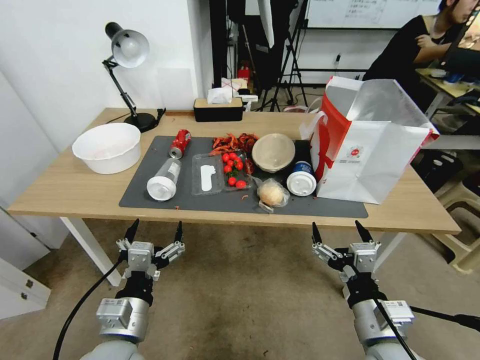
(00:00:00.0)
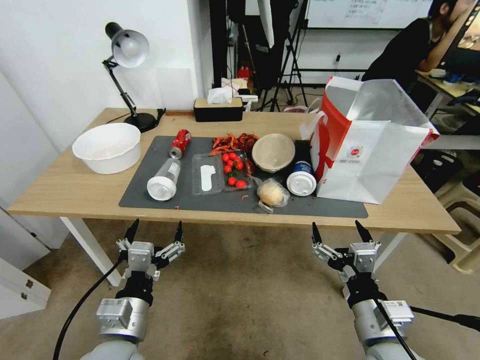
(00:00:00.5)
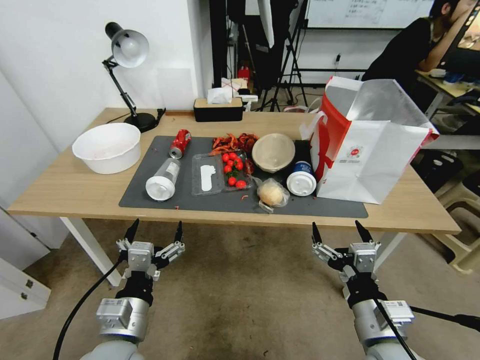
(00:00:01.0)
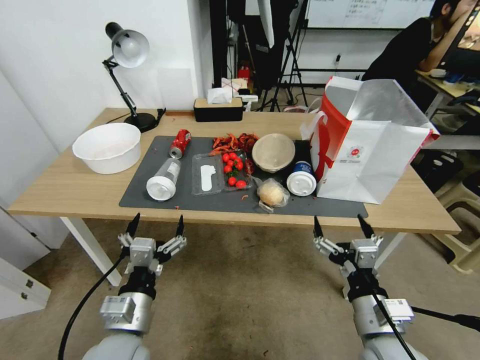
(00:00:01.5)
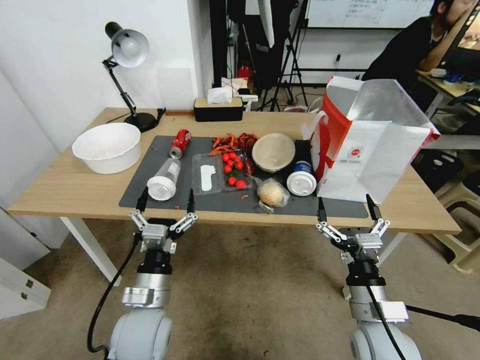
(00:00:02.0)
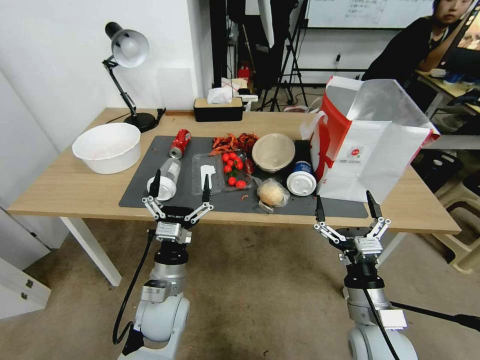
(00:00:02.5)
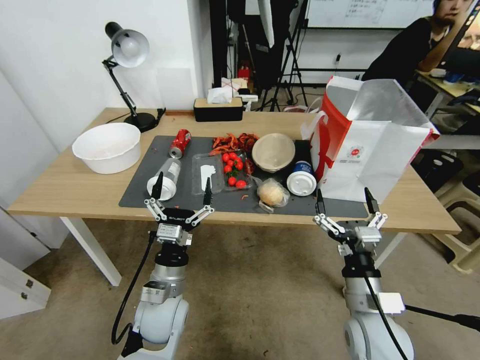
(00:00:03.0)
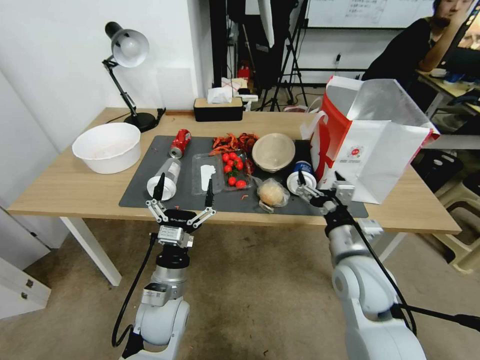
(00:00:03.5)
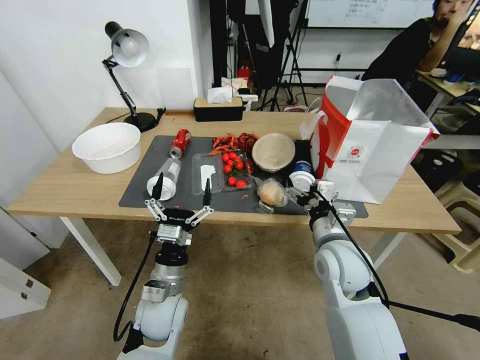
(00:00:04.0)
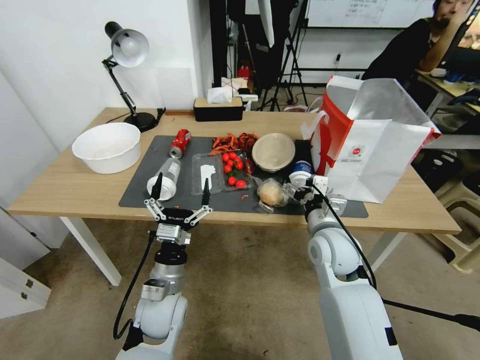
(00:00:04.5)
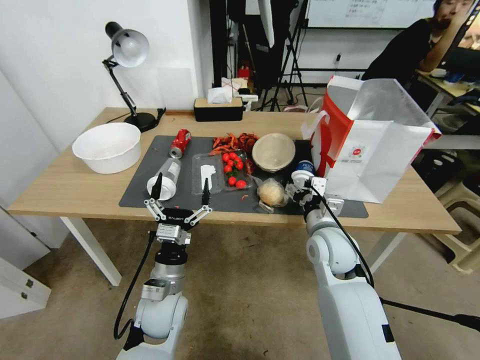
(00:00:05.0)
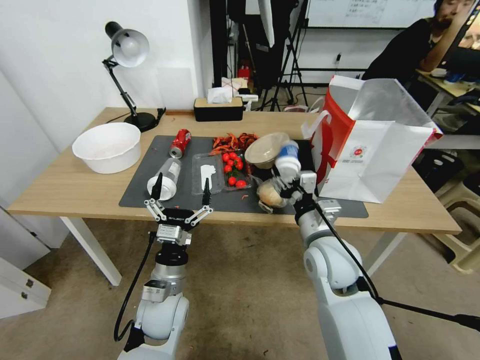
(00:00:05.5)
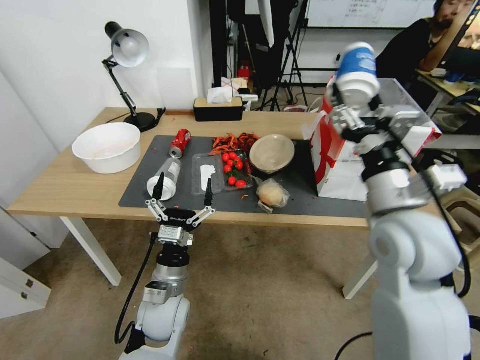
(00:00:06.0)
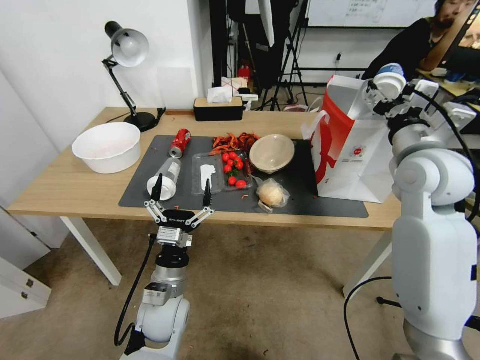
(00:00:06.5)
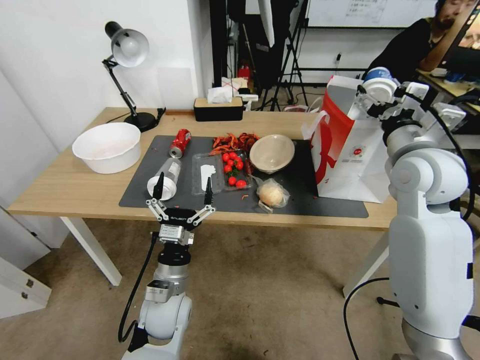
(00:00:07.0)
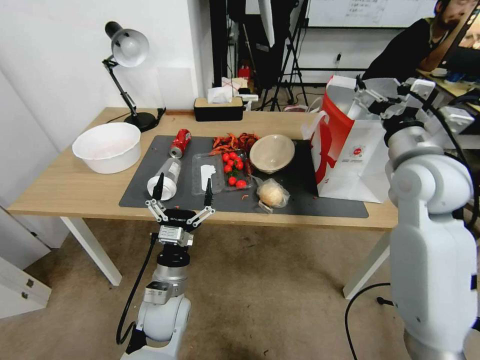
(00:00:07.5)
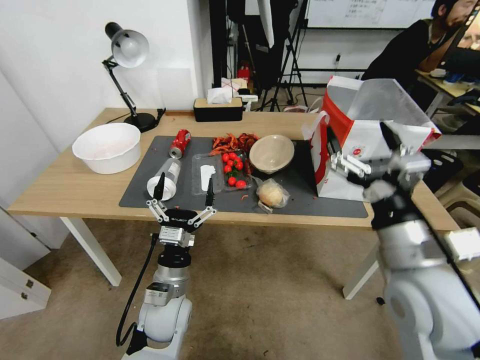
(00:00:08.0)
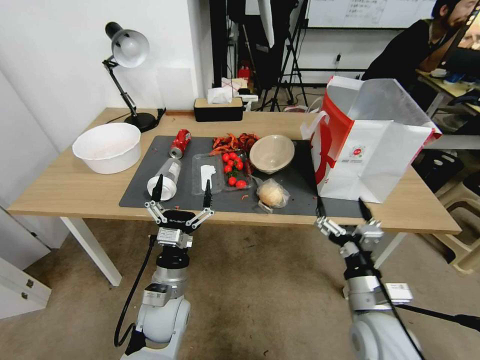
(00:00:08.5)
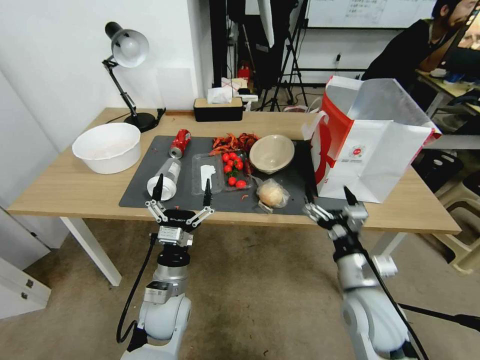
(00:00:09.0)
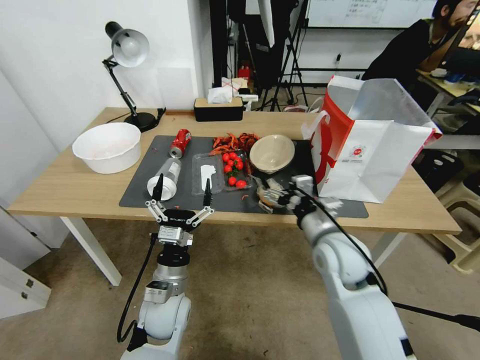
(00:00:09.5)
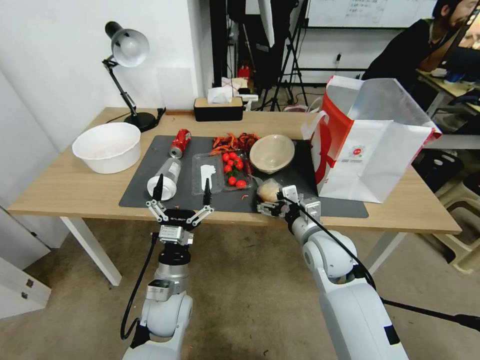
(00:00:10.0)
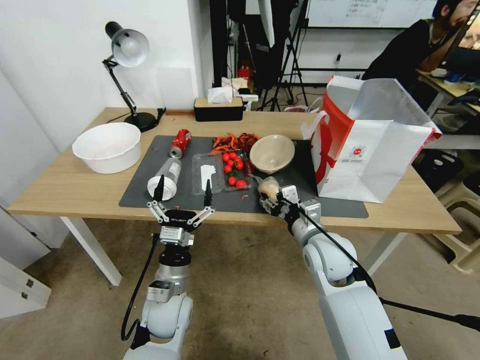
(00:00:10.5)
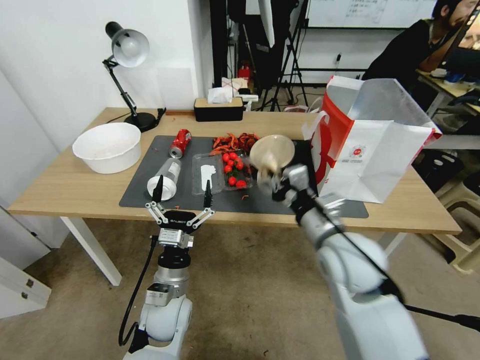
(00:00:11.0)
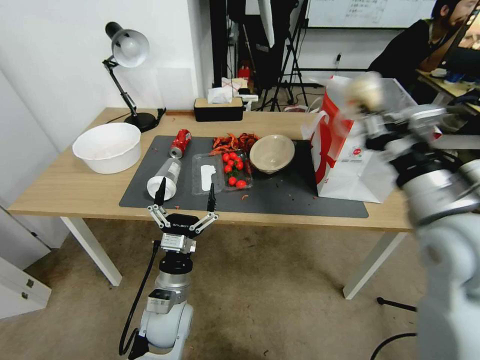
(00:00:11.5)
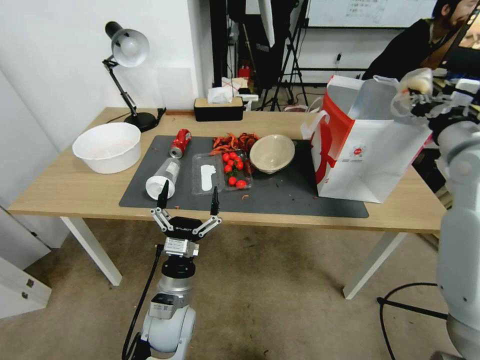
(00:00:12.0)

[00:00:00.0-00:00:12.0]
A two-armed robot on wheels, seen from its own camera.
00:00:02.0 to 00:00:04.0: The right gripper moves forward and upward, about 15 cm; the left gripper shifts by roughly 5 cm.
00:00:04.0 to 00:00:06.0: The right gripper heads upward, covering approximately 15 cm, and closes.
00:00:06.0 to 00:00:08.0: The right gripper is displaced backward by roughly 5 cm, and opens its fingers.
00:00:08.0 to 00:00:10.0: The right gripper travels forward, downward and to the left by approximately 20 cm.
00:00:10.0 to 00:00:12.0: The right gripper is displaced to the right and upward by roughly 30 cm, and closes.

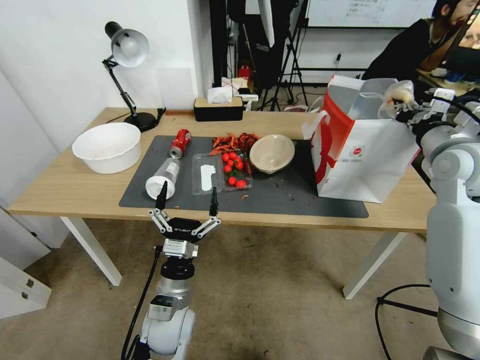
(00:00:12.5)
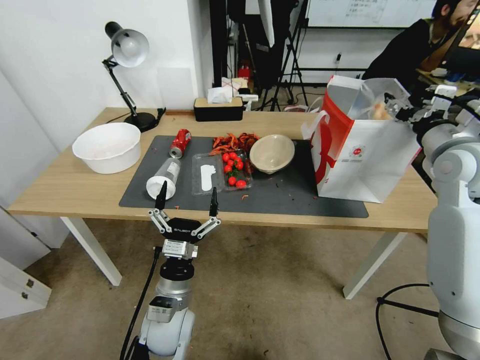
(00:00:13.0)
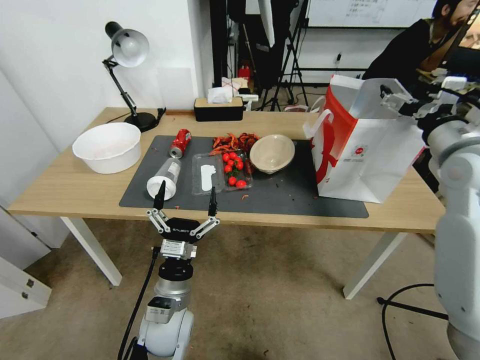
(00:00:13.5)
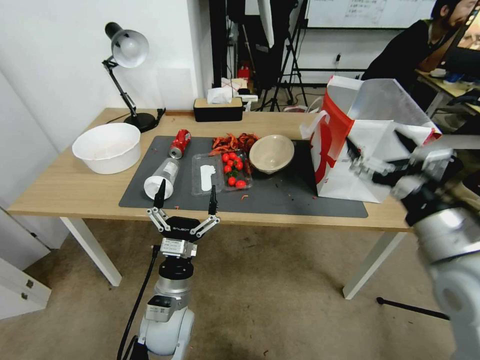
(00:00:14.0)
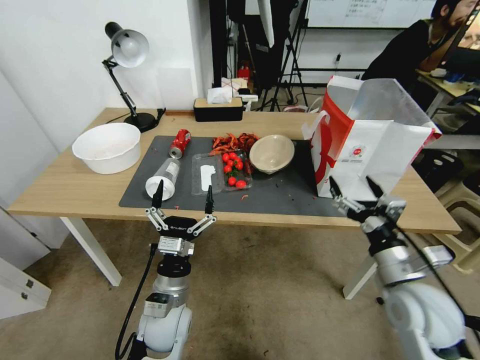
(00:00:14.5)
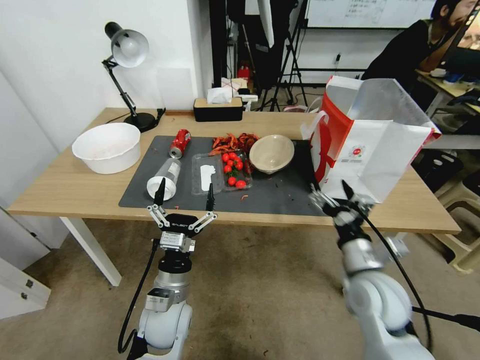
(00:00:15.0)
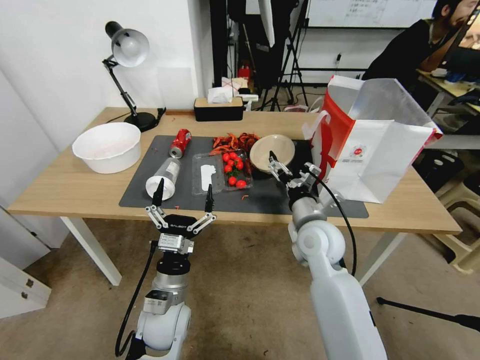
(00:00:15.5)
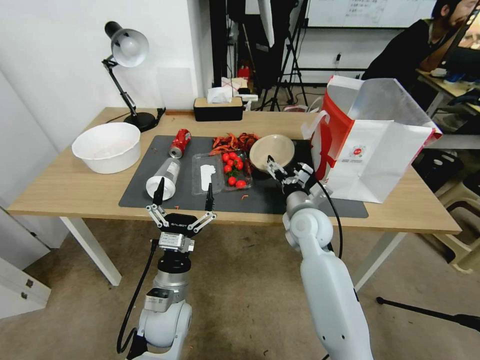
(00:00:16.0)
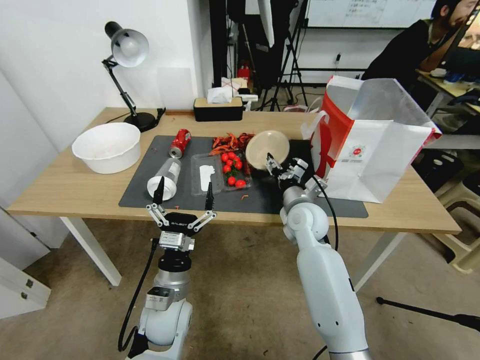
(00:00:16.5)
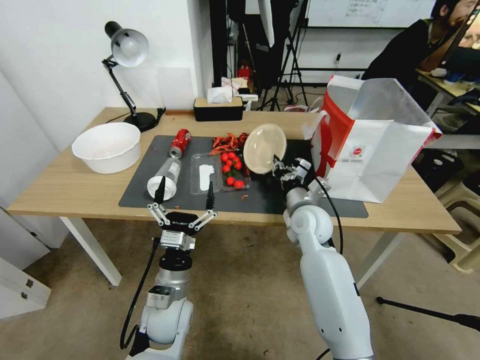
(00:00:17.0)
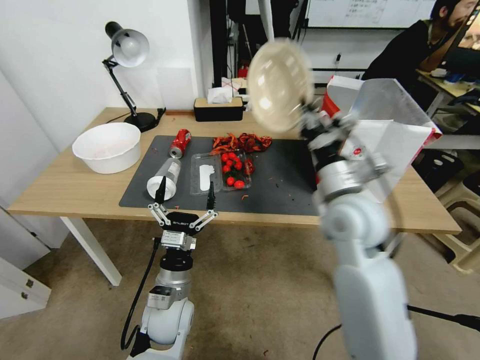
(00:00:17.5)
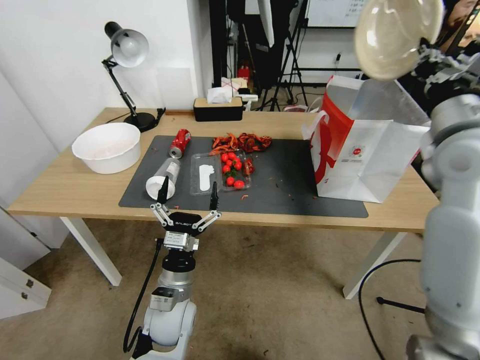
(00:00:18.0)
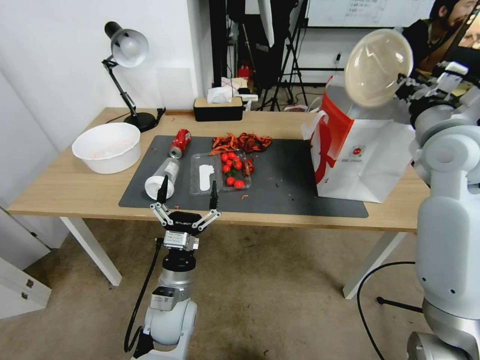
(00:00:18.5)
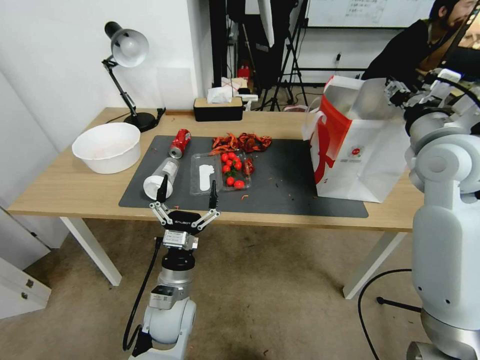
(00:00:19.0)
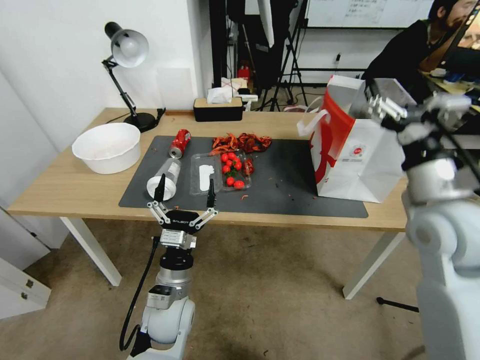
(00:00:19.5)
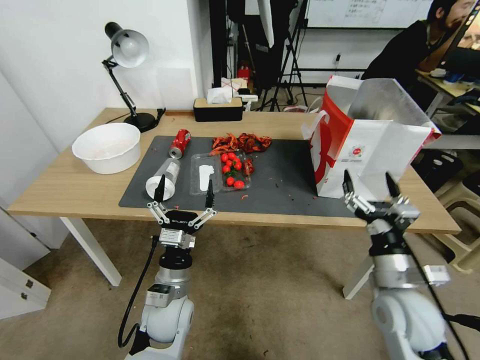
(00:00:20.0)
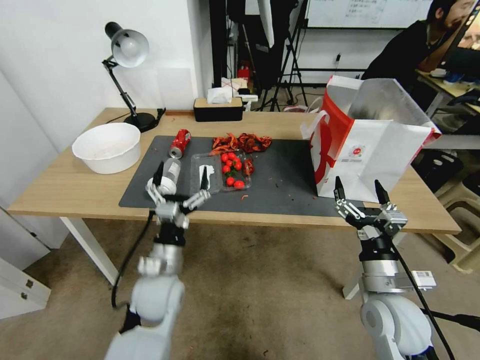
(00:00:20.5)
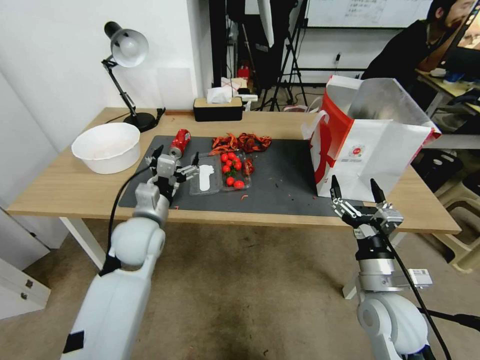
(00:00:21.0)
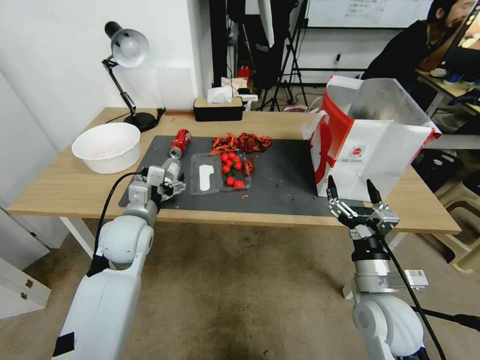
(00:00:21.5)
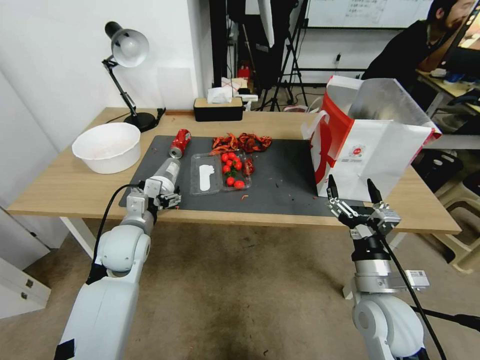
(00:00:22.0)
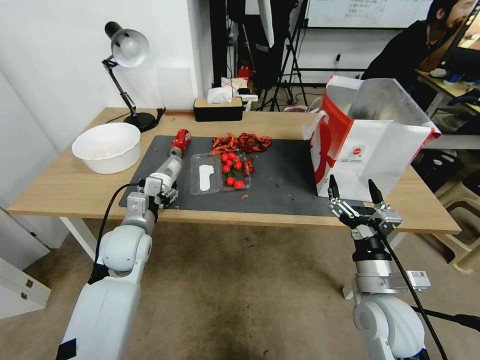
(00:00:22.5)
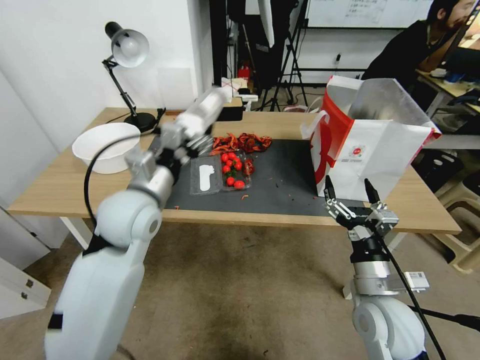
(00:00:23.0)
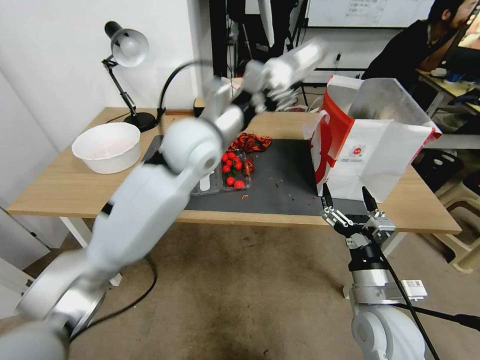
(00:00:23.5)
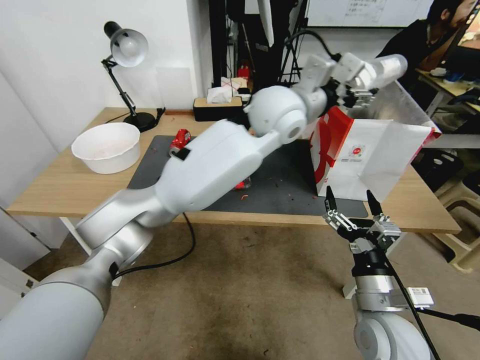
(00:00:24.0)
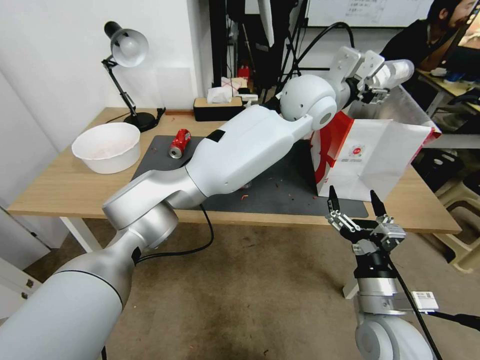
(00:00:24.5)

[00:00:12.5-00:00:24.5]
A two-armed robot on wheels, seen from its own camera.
00:00:12.5 to 00:00:14.5: The right gripper shifts about 25 cm backward, downward and to the left, and opens up.
00:00:14.5 to 00:00:16.5: The right gripper travels forward and to the left by roughly 25 cm, and closes.
00:00:16.5 to 00:00:18.5: The right gripper heads upward and to the right, covering roughly 30 cm, and closes up.
00:00:18.5 to 00:00:20.5: The right gripper heads downward and backward, covering approximately 30 cm, and opens its fingers.
00:00:20.5 to 00:00:22.5: The left gripper is displaced forward, to the left and upward by roughly 15 cm, and closes up.
00:00:22.5 to 00:00:24.5: The left gripper shifts approximately 50 cm to the right, upward and forward.

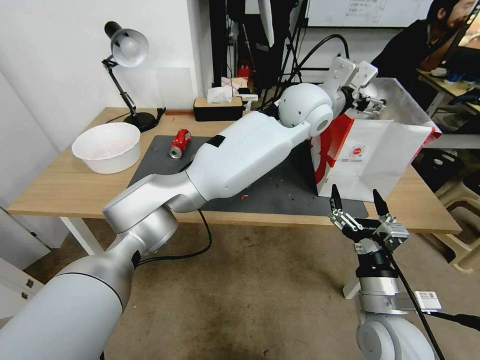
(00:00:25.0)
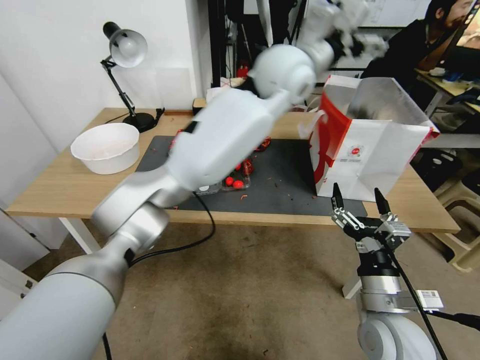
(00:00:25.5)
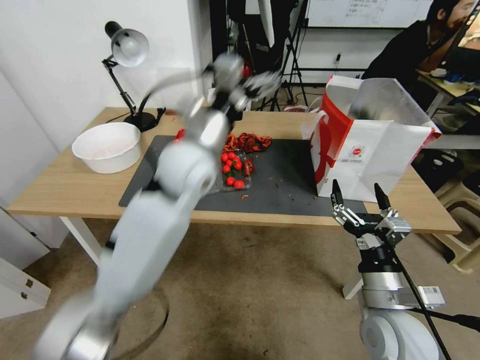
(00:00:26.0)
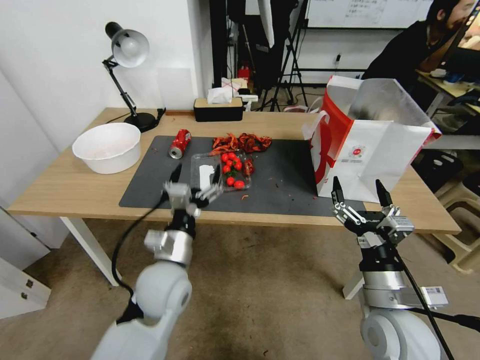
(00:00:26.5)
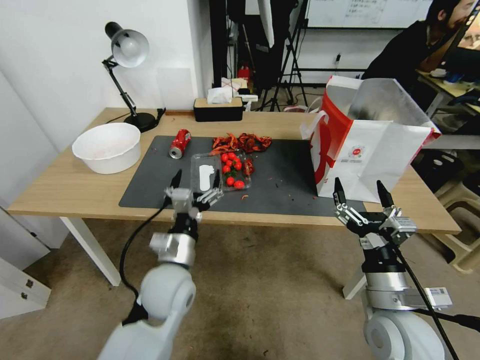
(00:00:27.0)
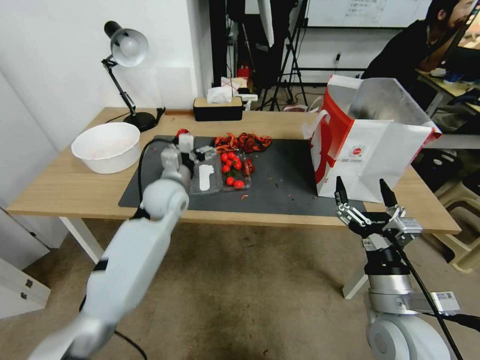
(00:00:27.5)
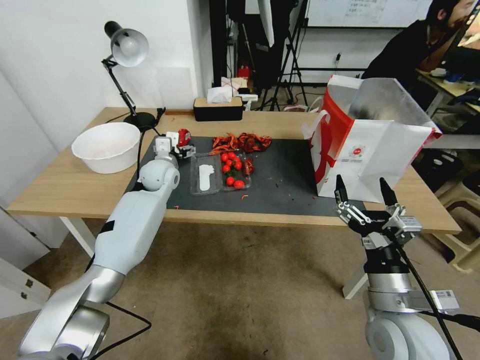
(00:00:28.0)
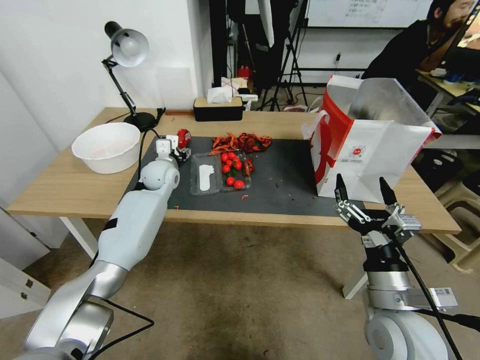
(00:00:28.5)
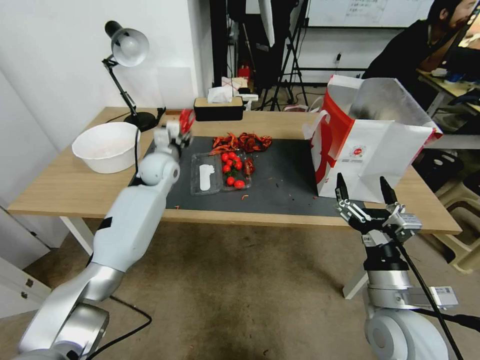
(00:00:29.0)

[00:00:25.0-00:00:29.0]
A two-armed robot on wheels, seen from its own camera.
00:00:25.0 to 00:00:27.0: The left gripper heads downward, to the left and backward, covering approximately 40 cm.
00:00:27.0 to 00:00:29.0: The left gripper is displaced forward by roughly 30 cm, and closes its fingers.
